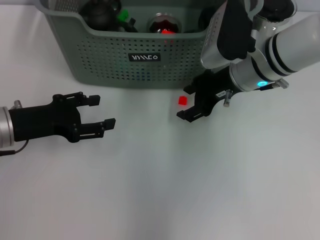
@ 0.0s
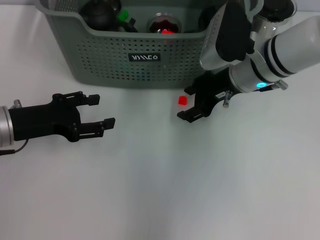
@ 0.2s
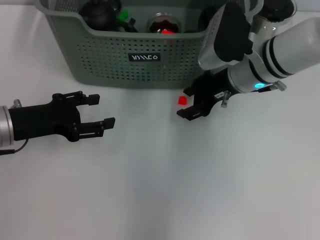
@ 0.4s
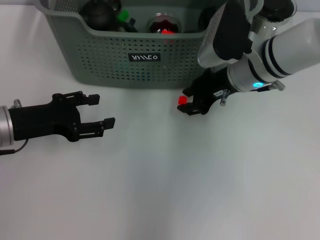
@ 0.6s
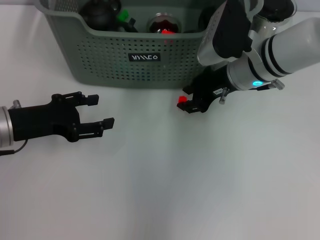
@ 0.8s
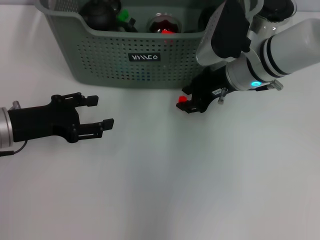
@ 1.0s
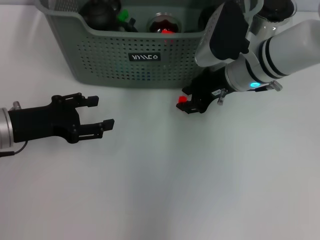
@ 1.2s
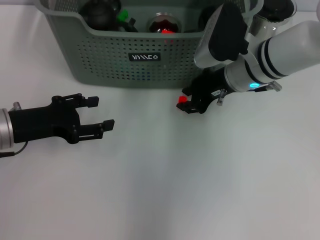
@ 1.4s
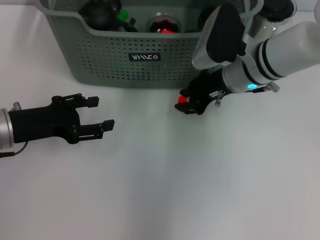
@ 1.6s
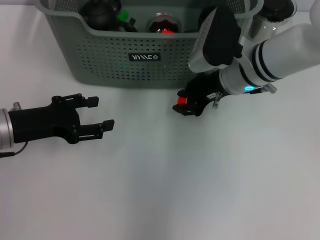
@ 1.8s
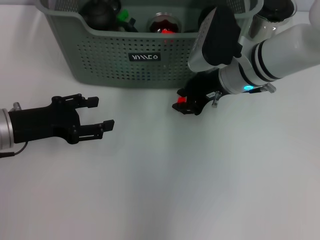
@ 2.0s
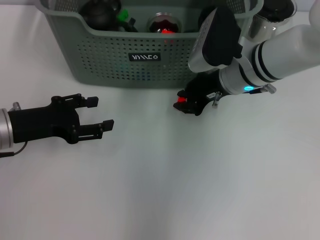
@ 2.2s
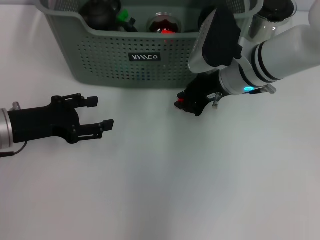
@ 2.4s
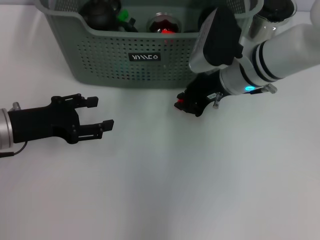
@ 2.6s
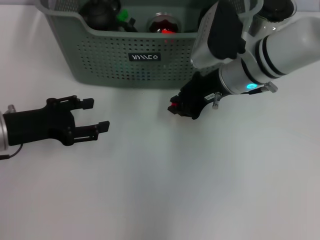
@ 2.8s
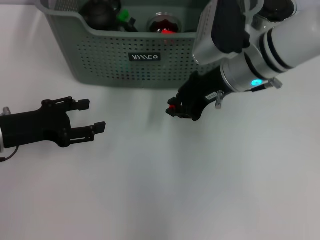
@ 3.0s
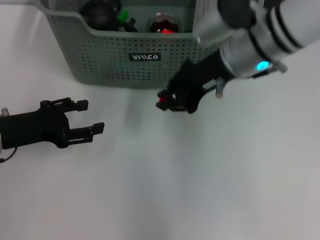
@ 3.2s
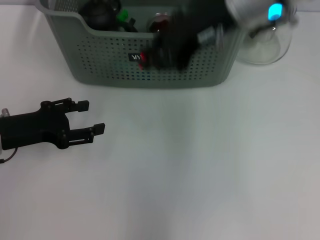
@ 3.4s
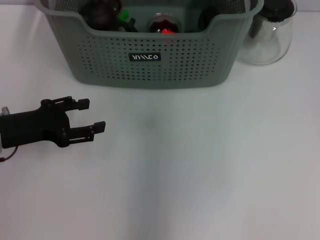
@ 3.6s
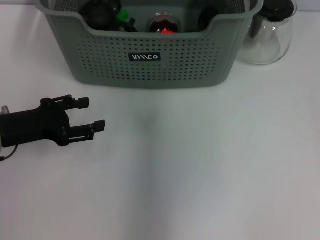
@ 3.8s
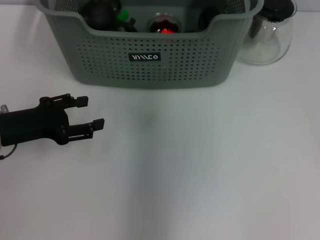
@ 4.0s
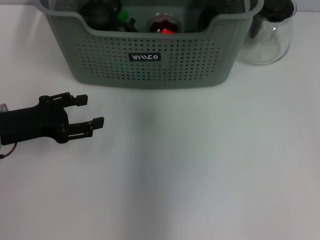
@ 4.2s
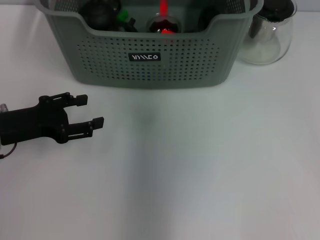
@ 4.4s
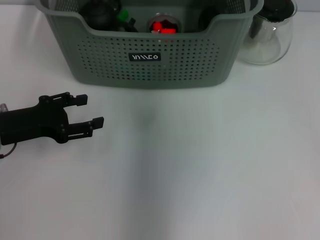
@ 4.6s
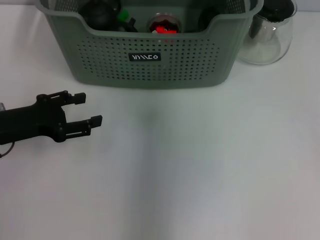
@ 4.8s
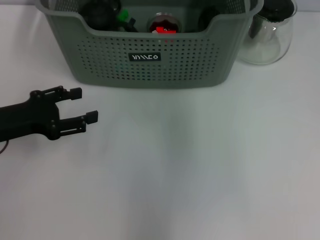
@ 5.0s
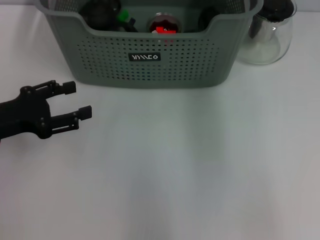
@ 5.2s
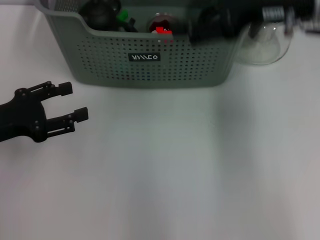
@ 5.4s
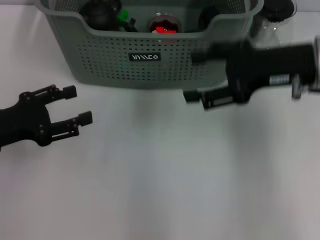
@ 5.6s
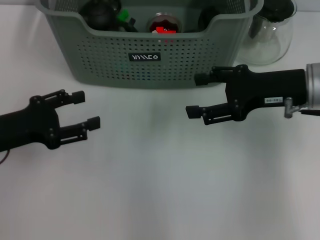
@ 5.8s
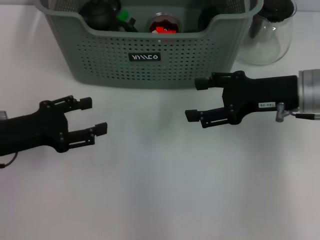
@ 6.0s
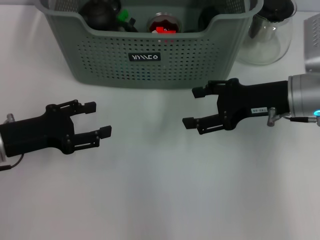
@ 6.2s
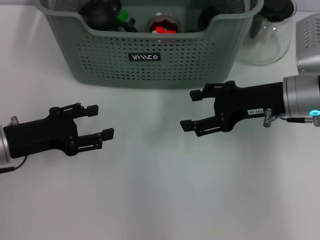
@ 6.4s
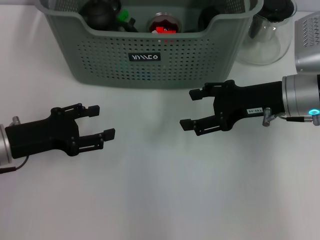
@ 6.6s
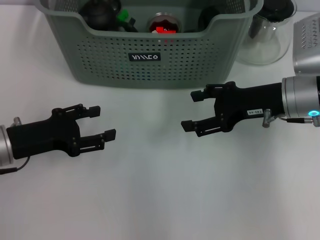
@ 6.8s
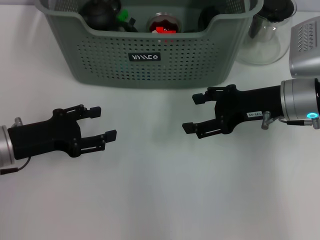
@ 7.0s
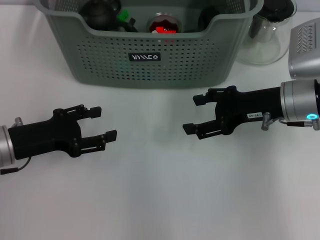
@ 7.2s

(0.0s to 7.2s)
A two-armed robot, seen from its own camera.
Task of the whole recording: pick up the teacup on the table and place it into the storage bin, pick up the block on the table and place it into the storage bin.
Step, 0.0s - 2.4s: Grasp the orange block with right gripper.
Step, 2.6s - 4.4s: Place the orange block in the storage box with right gripper.
0.0s - 1.4s: Both grippers stay put.
1.4s - 2.8s: The grippers move only a little.
2.8s - 4.4s: The right gripper goes some 15 cm upward and forward.
4.4s - 5.8s: The right gripper shifts approximately 20 cm to the right, backward and downward, and opens up.
5.8s - 7.2s: The grippers move only a little.

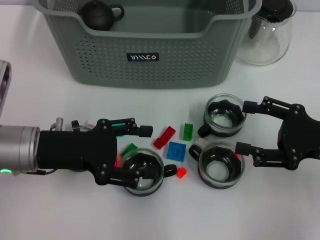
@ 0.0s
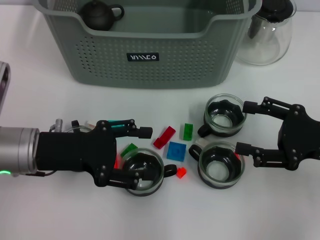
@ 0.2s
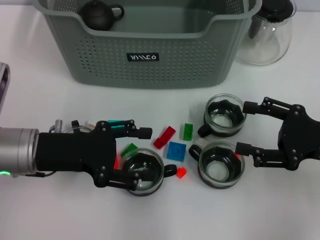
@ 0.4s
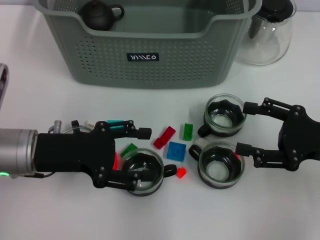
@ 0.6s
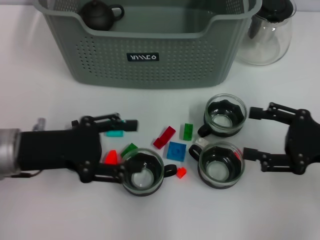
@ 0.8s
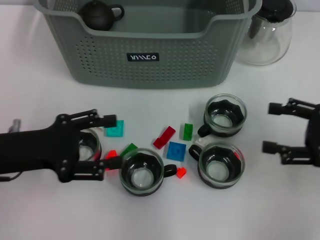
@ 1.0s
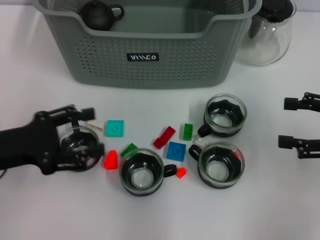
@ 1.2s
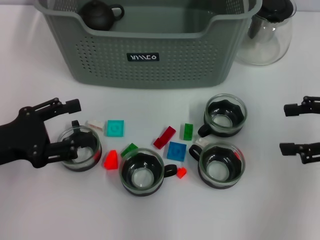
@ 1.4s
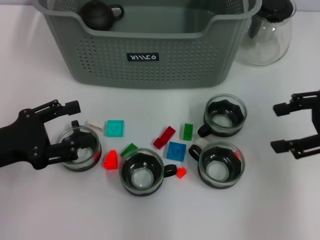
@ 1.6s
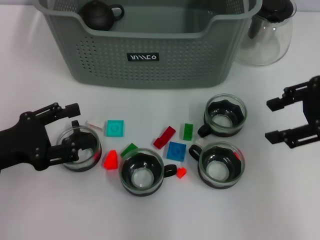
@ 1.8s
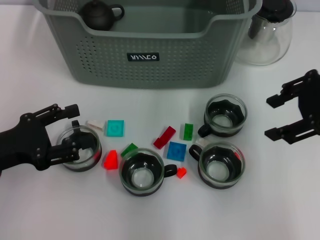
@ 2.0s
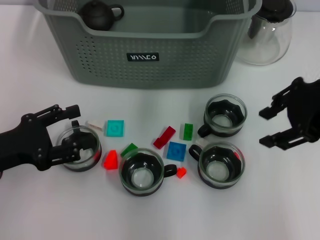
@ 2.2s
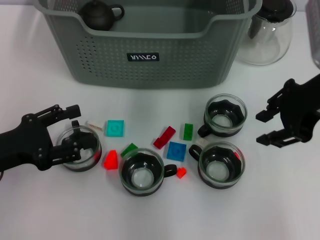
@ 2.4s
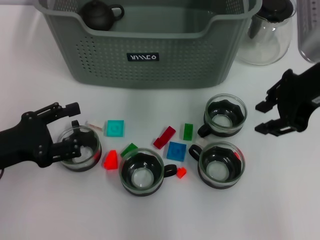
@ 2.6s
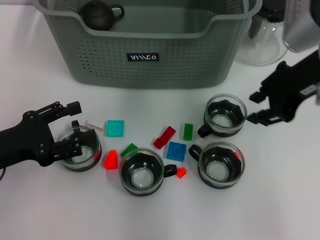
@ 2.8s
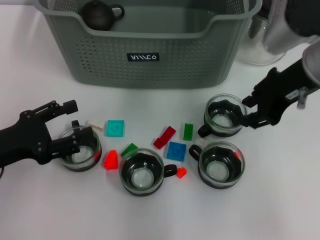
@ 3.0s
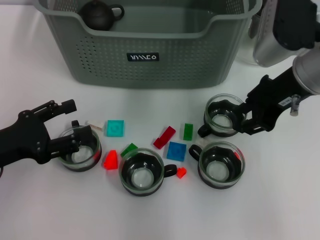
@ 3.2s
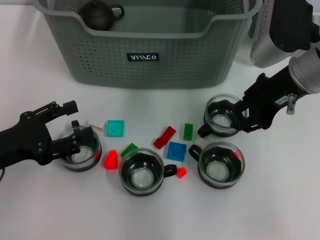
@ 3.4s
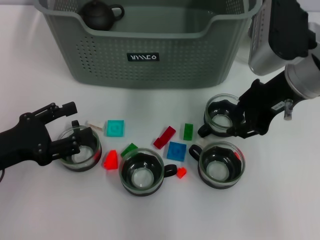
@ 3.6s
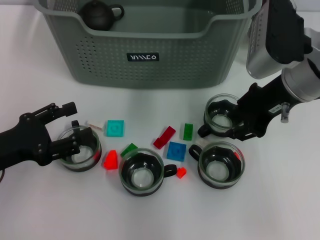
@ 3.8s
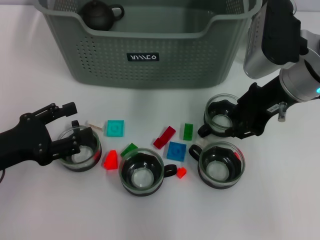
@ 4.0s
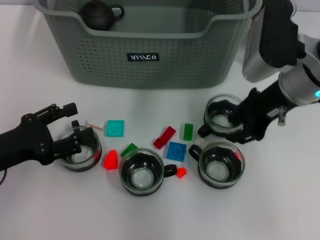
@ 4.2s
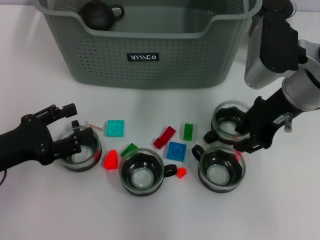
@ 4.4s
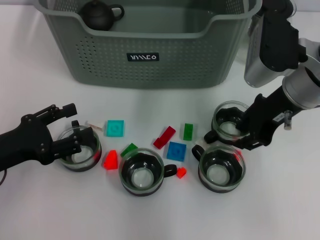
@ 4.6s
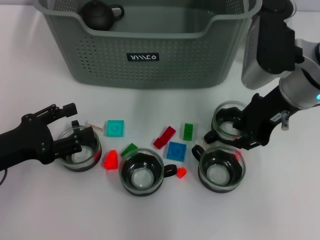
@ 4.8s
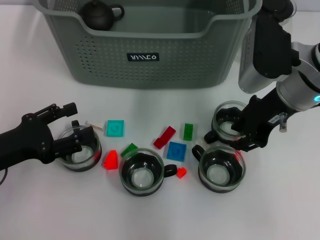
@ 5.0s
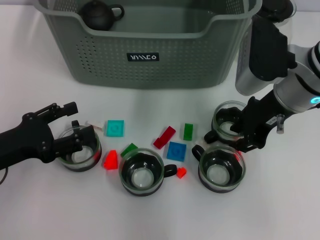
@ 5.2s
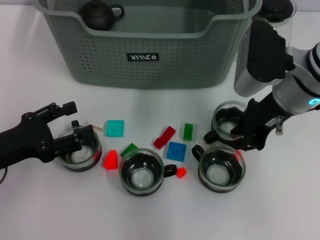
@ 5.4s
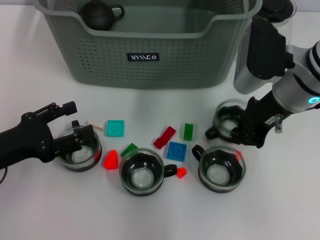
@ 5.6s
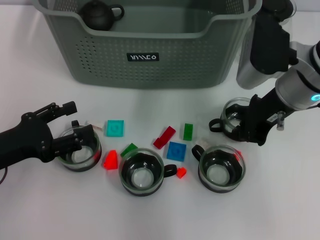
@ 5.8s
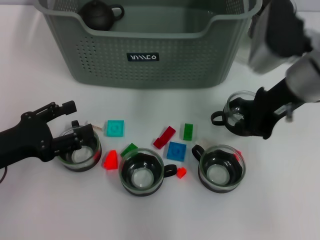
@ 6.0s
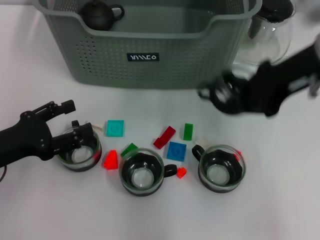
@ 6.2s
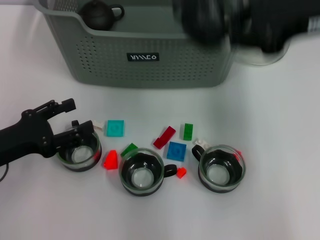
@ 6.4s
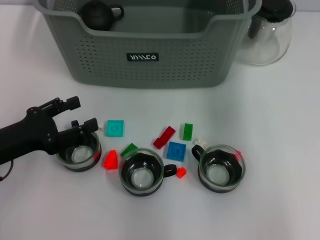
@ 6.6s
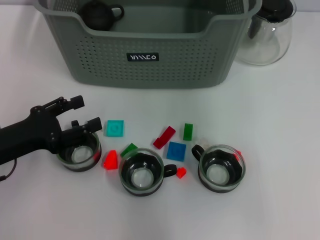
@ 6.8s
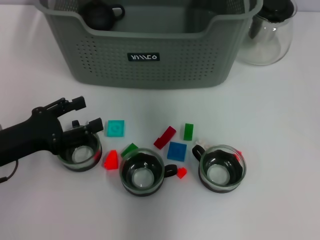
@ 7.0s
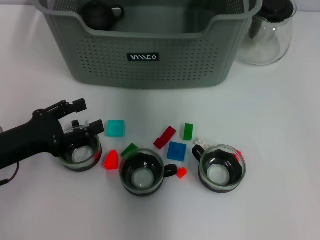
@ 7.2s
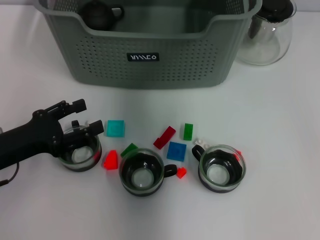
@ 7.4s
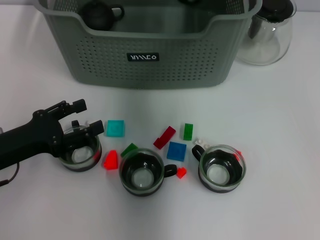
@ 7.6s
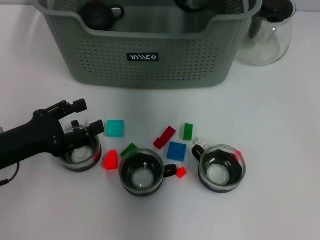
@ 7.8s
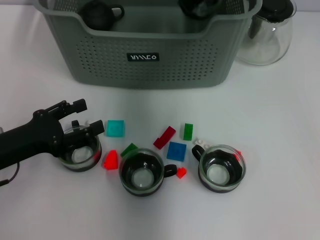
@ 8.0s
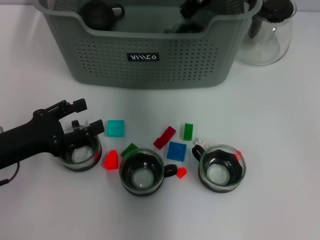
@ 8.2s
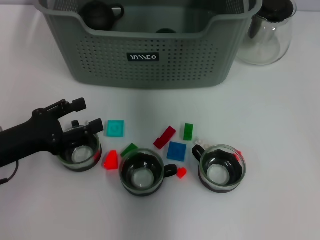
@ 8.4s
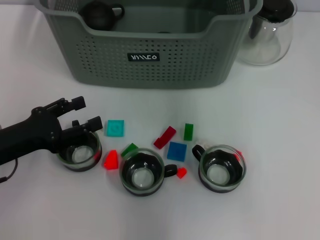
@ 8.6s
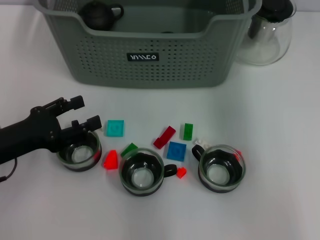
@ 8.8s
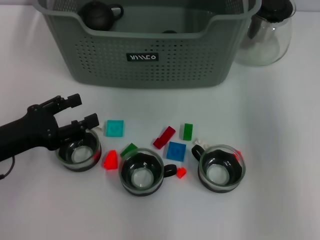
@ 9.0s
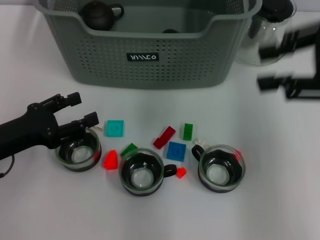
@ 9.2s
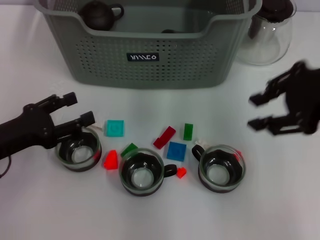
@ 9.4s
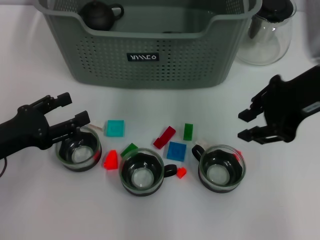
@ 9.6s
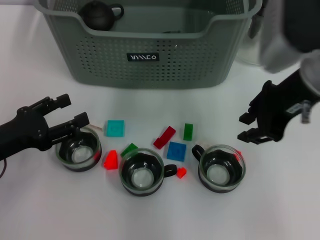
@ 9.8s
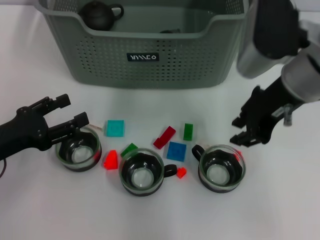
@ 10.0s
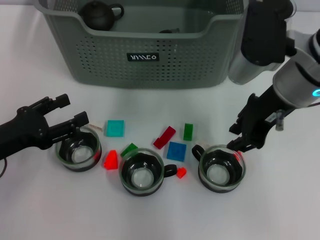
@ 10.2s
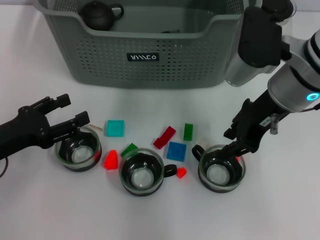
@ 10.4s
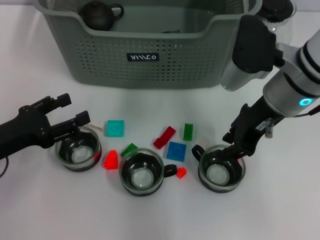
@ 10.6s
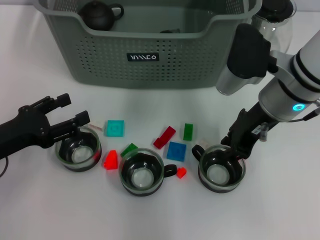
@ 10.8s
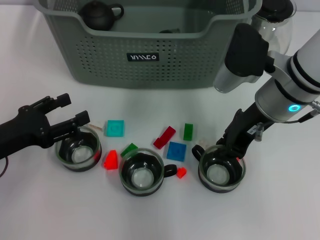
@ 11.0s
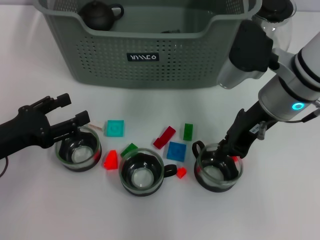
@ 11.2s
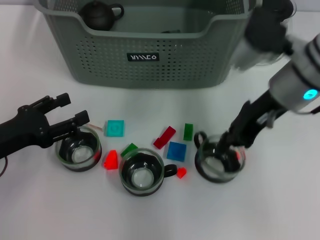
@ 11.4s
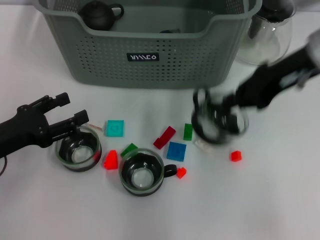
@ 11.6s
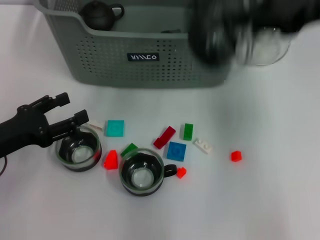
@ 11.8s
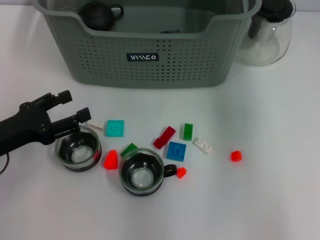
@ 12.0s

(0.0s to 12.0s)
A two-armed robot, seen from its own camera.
Task of the whole recording: pick up the teacup on the table and place it into the storage bin, pick up the block on the table and place it into the storage bin.
Step, 0.0s - 5.8s: Grasp the cup with right gripper.
Step, 6.0s - 9.0s: Place the cup in the storage box with right gripper.
Step, 9.2s - 11.2s: Grasp the cup with right gripper.
0.0s - 1.6s: The right gripper shifts some 10 cm upward; the left gripper is displaced to the left by approximately 10 cm.
1.6s - 3.0s: The right gripper moves to the left and forward, about 15 cm, and closes.
3.0s - 4.4s: The right gripper heads downward, covering some 5 cm.
4.4s - 6.0s: The right gripper closes.
6.0s - 7.6s: The right gripper travels forward, to the left and upward by roughly 20 cm.
7.6s - 9.0s: The right gripper goes some 25 cm to the right and backward, and opens.
9.0s - 10.4s: The right gripper is displaced downward and to the left by some 15 cm.
10.4s - 12.0s: The right gripper travels upward and to the right by about 15 cm, and closes its fingers.

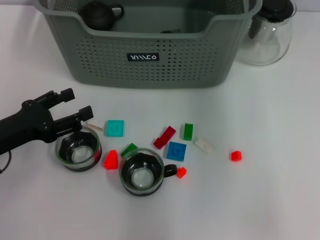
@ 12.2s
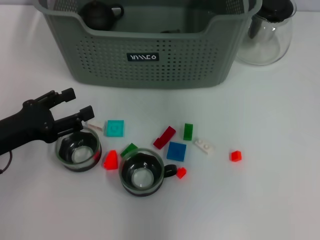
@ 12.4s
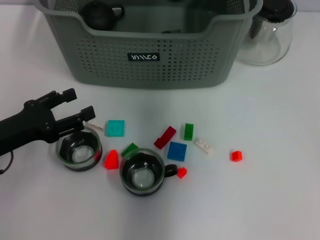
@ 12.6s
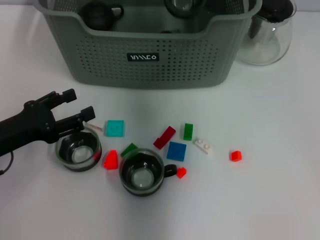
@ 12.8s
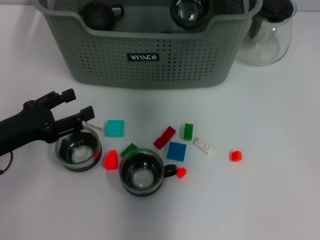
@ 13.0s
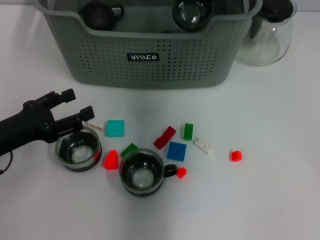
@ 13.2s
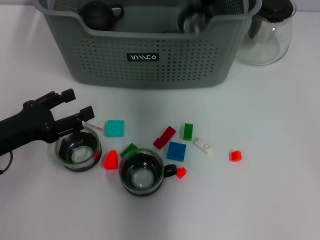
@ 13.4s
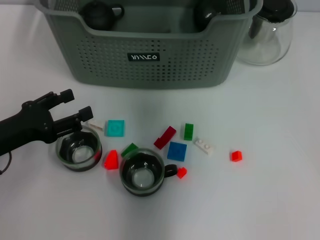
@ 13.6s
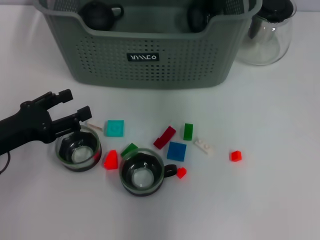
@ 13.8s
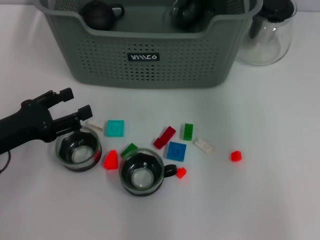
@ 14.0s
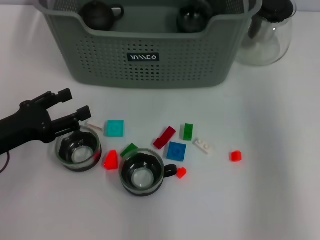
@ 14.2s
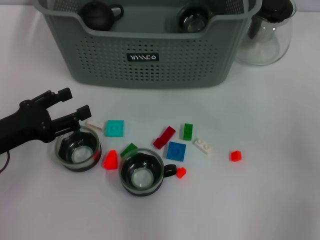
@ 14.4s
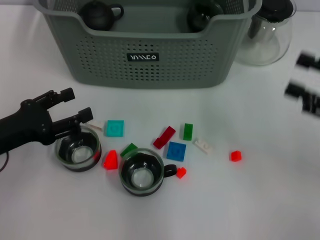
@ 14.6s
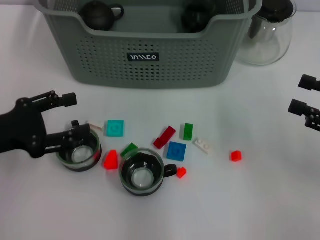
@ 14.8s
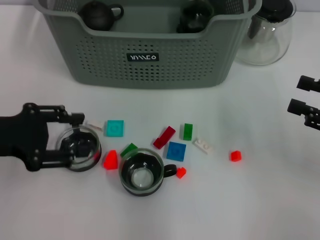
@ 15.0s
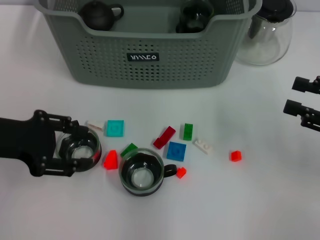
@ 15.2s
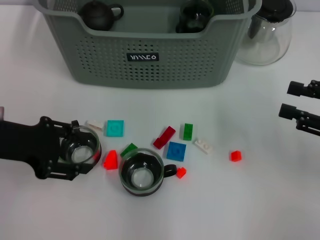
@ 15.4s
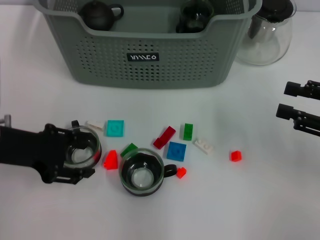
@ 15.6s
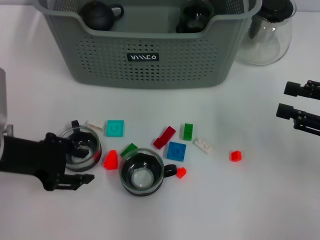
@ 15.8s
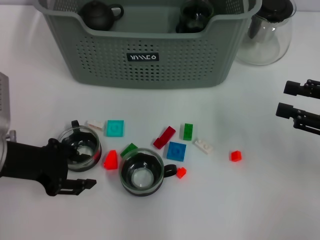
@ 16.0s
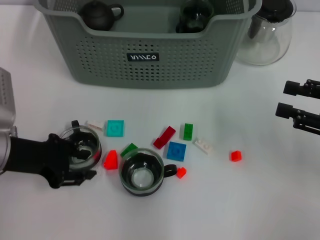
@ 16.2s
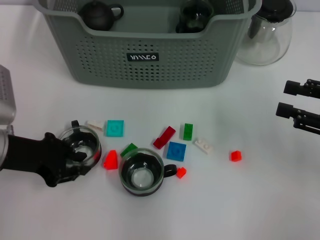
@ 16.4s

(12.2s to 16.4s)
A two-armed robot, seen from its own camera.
Task of the whole recording: pick up the teacup on the table and place it into the storage bin, pick up the block on the table and place it into the storage bin.
Step, 12.2s - 13.6s: Place the cup in the storage box with right gripper.
12.2s - 13.6s: The right gripper shifts some 15 cm forward, to the left and downward.
13.6s - 15.0s: The left gripper moves upward, approximately 10 cm; the right gripper travels to the right, backward and downward by roughly 35 cm, and opens.
15.0s - 16.4s: The left gripper ends up roughly 5 cm from where it was, and closes.
